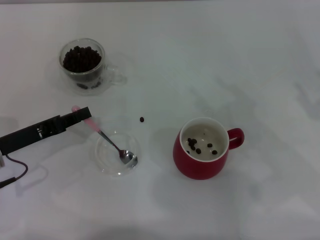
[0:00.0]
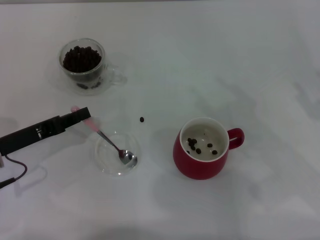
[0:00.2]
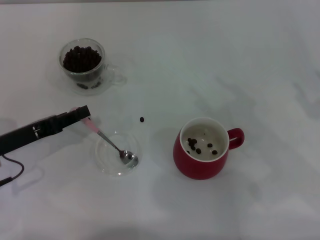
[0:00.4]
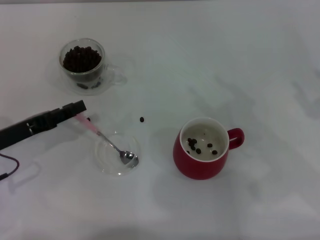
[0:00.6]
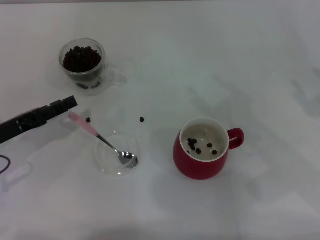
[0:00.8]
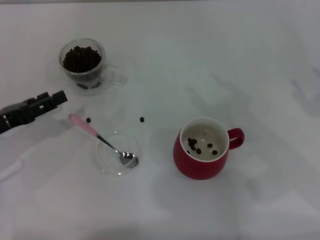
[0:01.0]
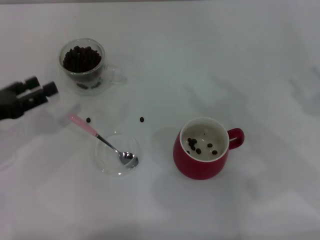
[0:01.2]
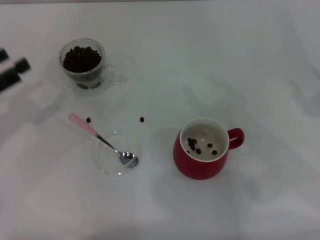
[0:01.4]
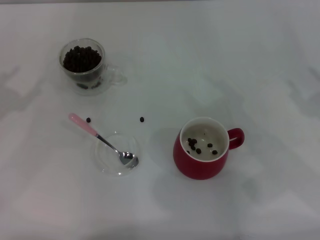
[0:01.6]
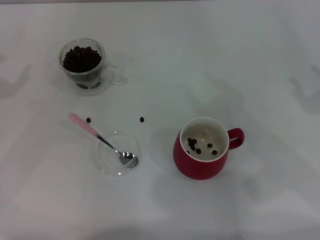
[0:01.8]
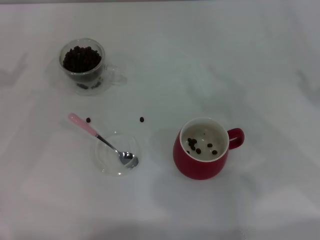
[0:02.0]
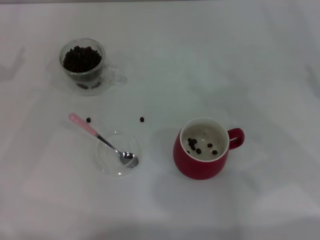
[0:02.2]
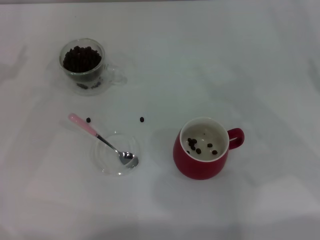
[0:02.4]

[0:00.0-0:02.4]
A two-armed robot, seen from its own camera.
Task of the whole recording: Use a pink spoon to take out the coffee beans from the glass and pour them into the red cup.
0:00.0 to 0:01.2: The left gripper ends up roughly 5 cm from where it was, and opens its fingers.
0:01.2 to 0:02.4: The left gripper ends up approximately 5 cm from where it was.

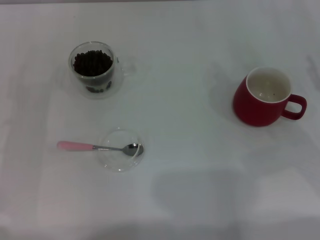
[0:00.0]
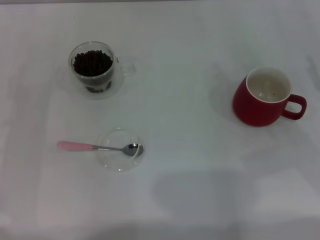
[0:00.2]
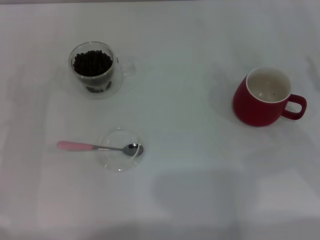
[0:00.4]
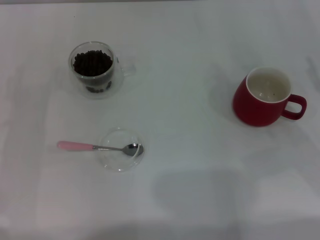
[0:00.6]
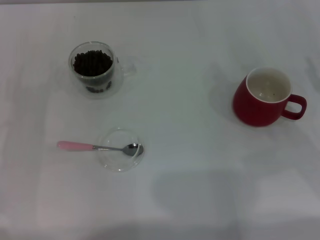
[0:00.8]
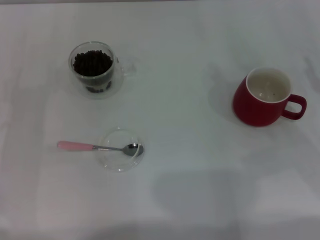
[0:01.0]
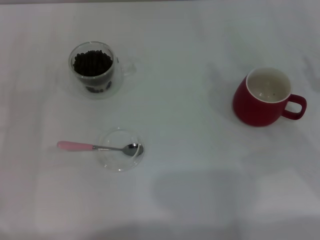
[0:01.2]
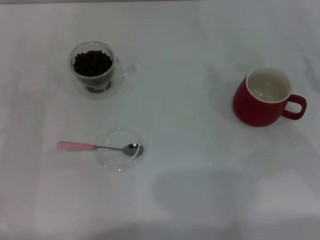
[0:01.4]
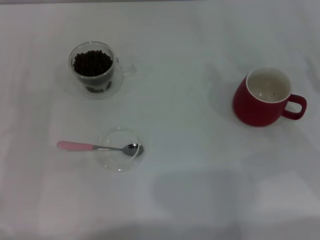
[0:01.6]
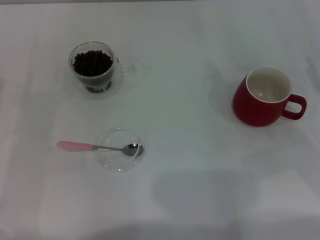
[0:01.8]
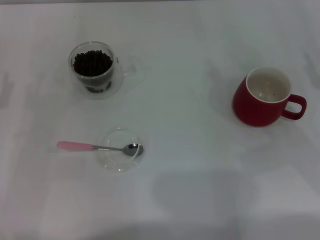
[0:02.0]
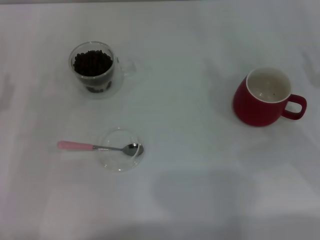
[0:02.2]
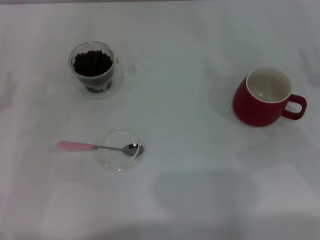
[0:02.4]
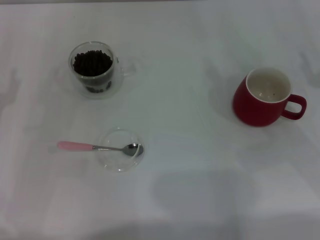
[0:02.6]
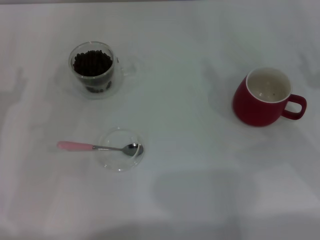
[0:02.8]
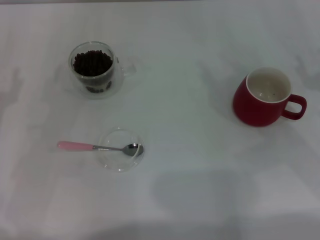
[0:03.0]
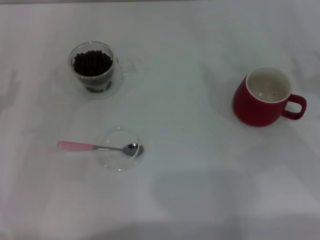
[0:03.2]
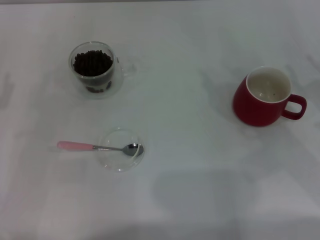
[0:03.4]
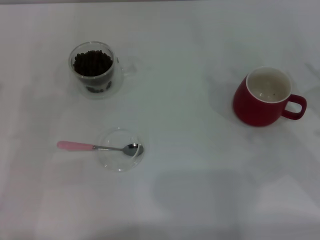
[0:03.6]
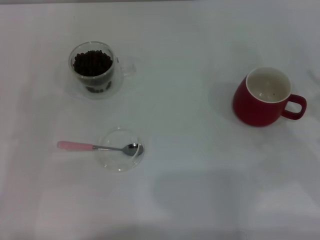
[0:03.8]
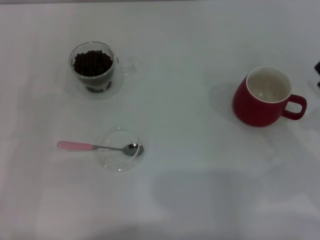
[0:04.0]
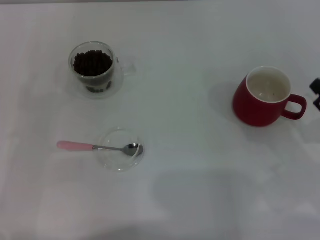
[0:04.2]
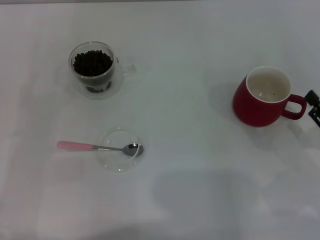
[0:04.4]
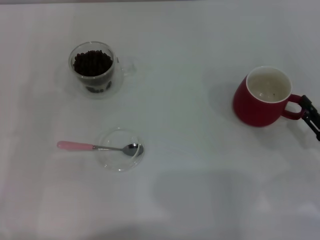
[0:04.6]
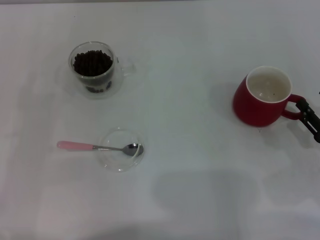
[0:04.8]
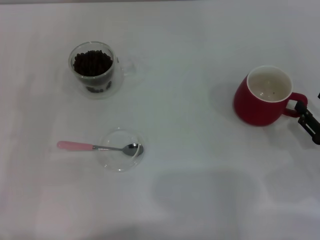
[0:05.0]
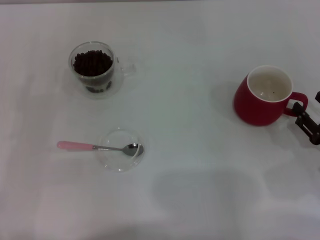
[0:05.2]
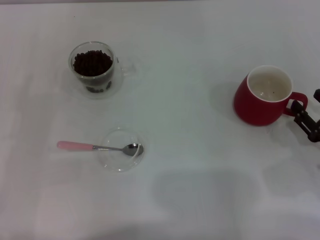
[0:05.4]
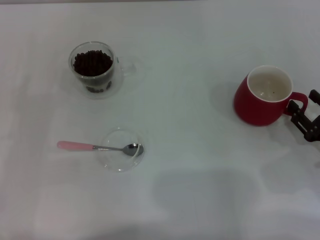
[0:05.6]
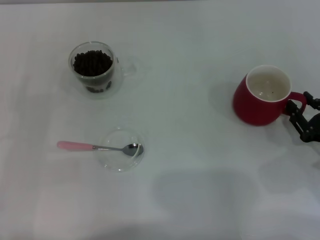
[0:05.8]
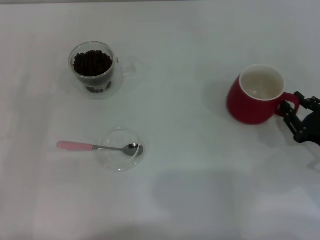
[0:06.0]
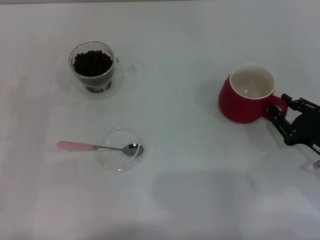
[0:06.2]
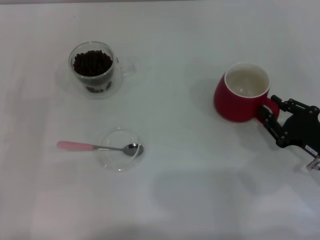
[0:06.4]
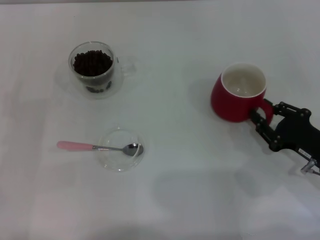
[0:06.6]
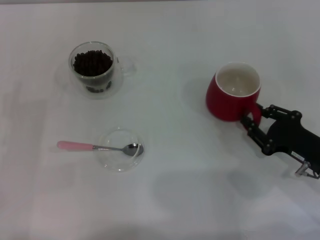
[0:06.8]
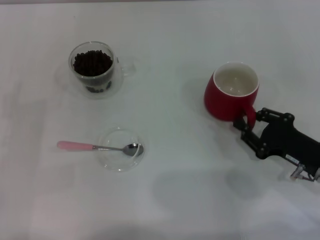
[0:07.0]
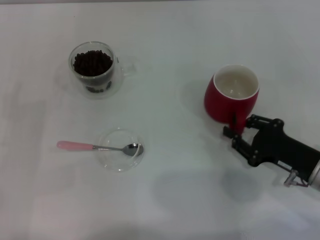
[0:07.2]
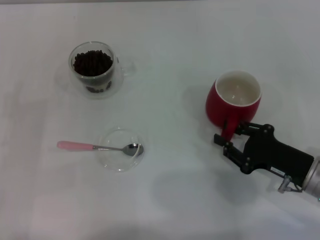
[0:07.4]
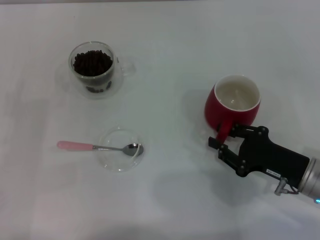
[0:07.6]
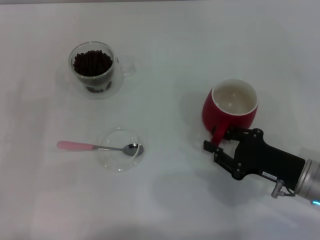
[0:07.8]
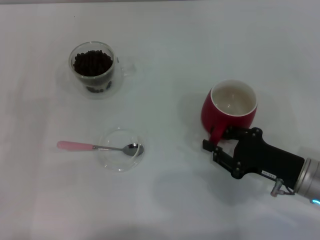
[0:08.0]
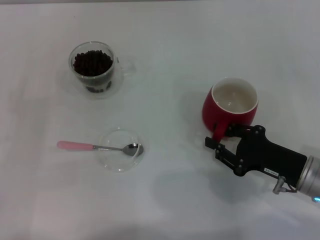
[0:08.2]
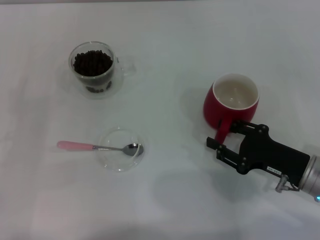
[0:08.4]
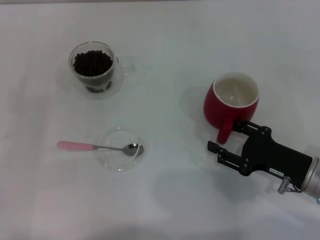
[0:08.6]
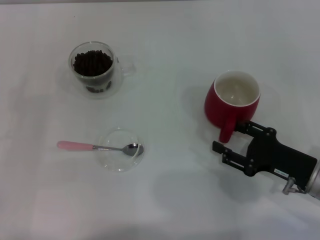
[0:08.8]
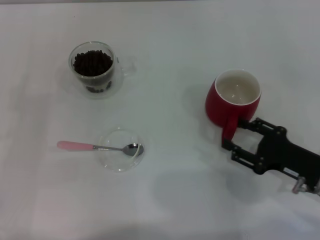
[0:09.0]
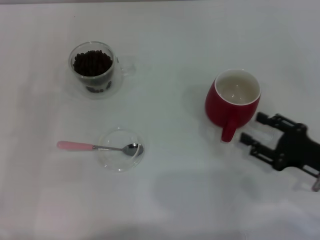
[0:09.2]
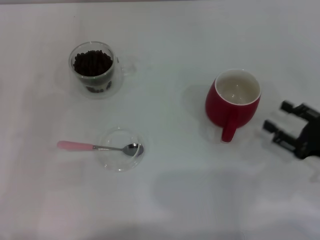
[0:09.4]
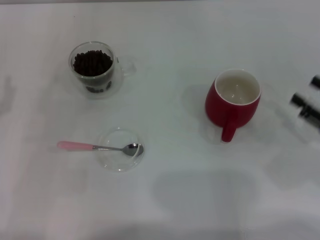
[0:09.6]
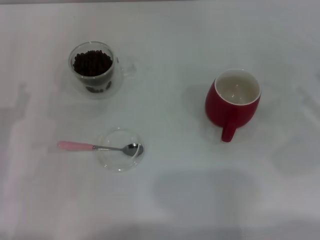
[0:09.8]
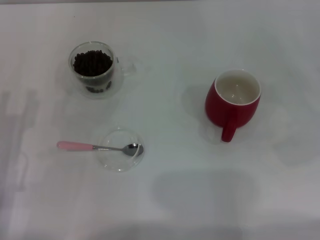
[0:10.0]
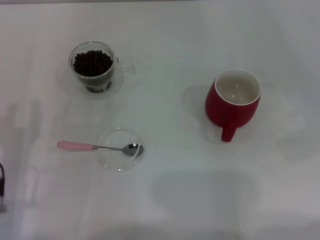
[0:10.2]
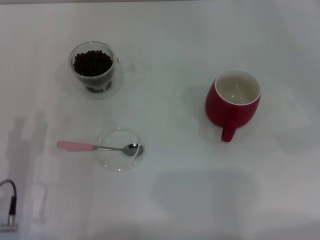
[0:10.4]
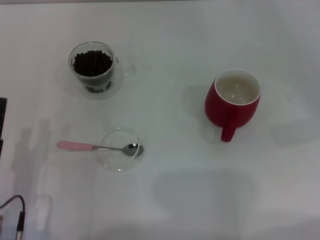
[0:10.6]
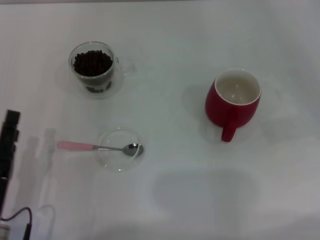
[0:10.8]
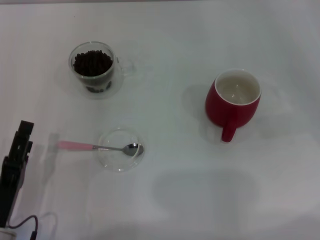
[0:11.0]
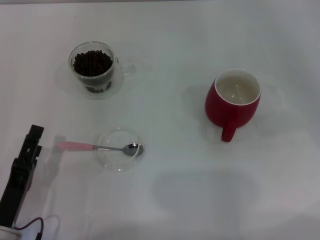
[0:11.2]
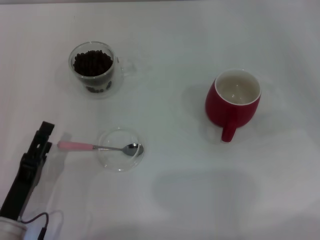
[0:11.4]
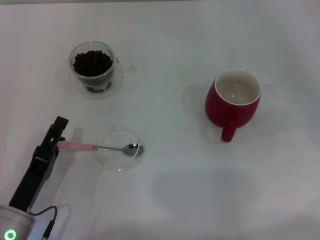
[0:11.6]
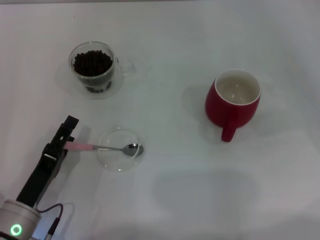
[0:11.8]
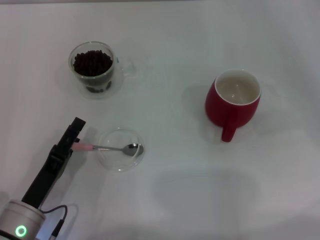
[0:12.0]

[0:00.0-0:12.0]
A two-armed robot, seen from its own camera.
Task of the whole recording: Use a pink spoon to take out the coffee beans from the glass and pour them into the red cup.
Step, 0:00.0 to 0:09.2: Move the cup to the center of view with the left gripper.
0:04.4 to 0:06.0: The right gripper closes its fingers.
0:06.0 to 0:07.6: The right gripper heads to the left, covering about 5 cm.
0:07.6 to 0:09.0: The right gripper opens.
0:09.0 to 0:10.4: The left gripper goes roughly 15 cm to the right and backward, while the right gripper is displaced to the right and upward by roughly 20 cm.

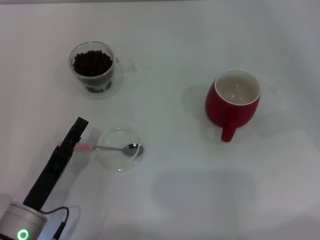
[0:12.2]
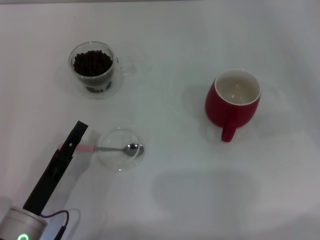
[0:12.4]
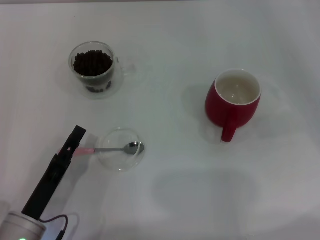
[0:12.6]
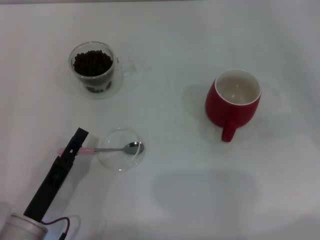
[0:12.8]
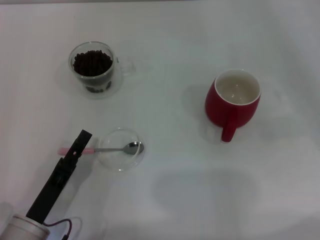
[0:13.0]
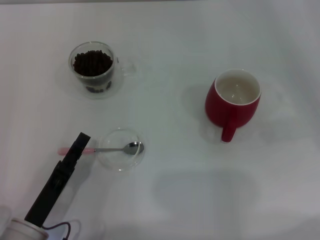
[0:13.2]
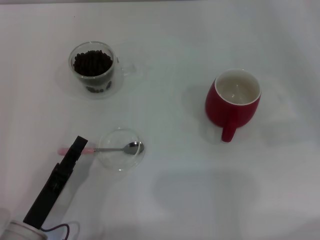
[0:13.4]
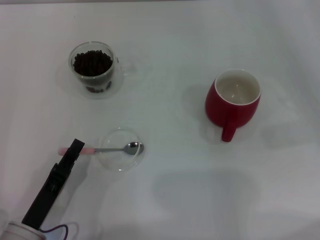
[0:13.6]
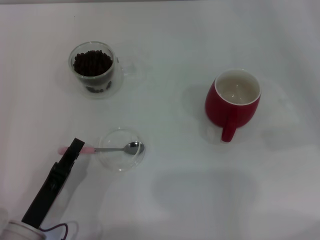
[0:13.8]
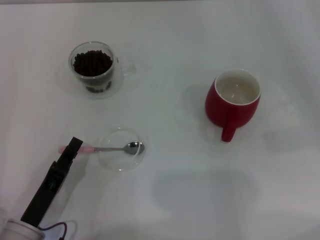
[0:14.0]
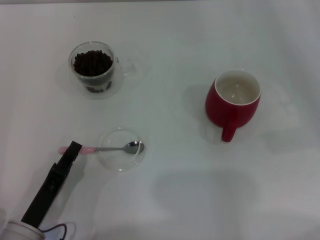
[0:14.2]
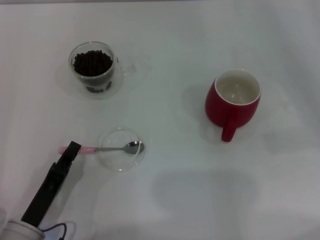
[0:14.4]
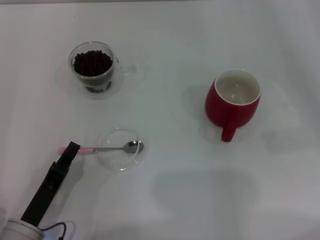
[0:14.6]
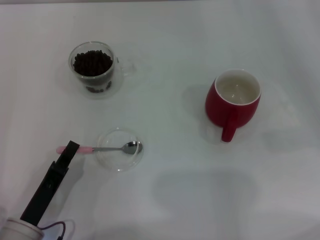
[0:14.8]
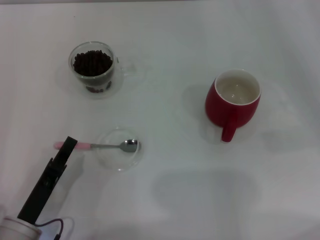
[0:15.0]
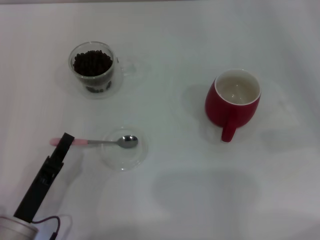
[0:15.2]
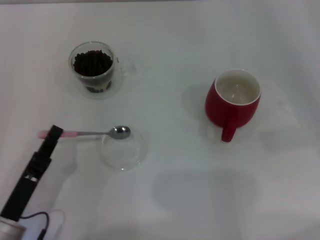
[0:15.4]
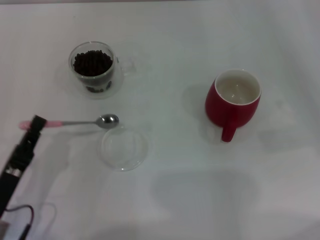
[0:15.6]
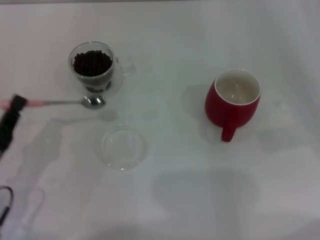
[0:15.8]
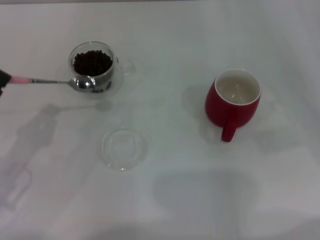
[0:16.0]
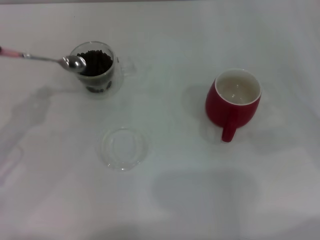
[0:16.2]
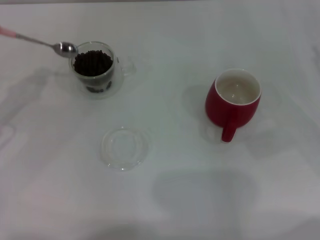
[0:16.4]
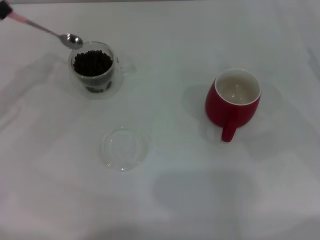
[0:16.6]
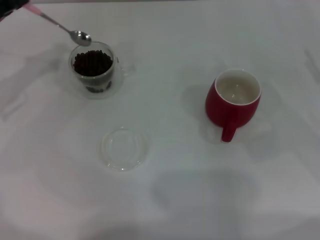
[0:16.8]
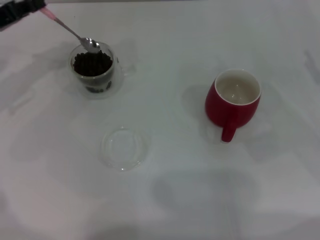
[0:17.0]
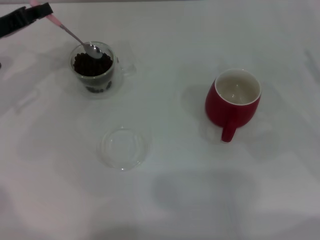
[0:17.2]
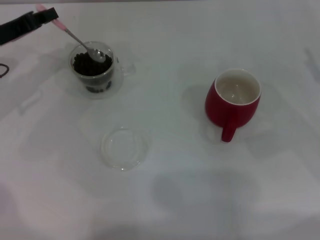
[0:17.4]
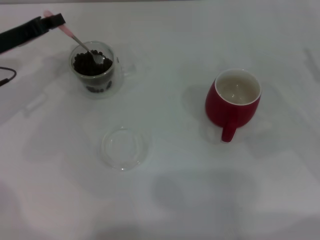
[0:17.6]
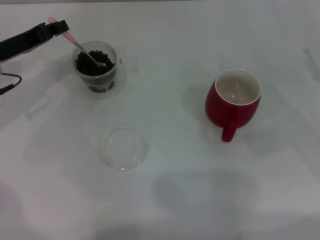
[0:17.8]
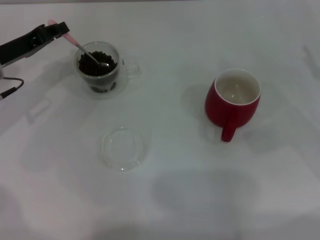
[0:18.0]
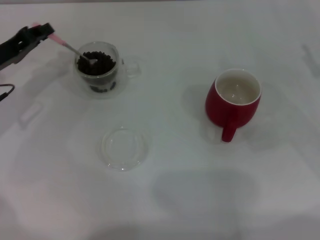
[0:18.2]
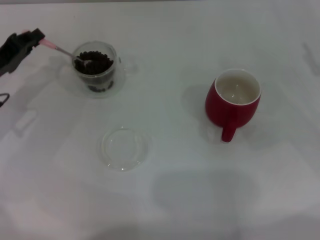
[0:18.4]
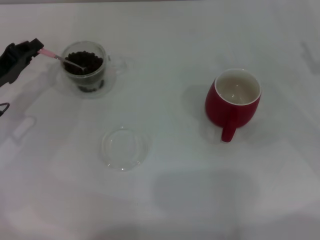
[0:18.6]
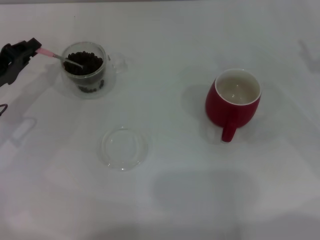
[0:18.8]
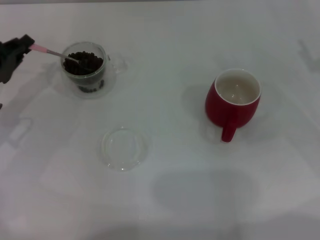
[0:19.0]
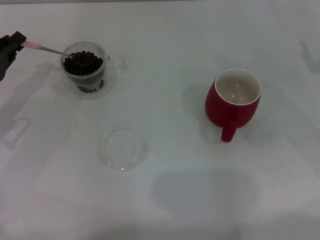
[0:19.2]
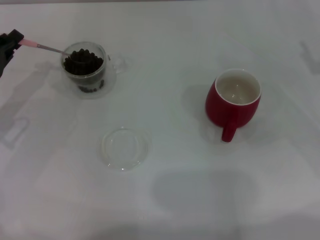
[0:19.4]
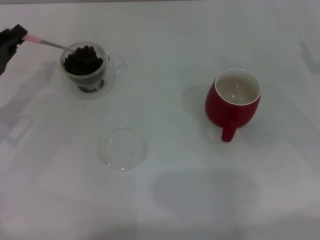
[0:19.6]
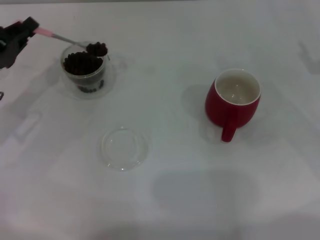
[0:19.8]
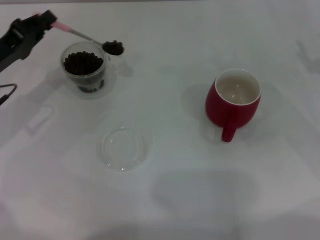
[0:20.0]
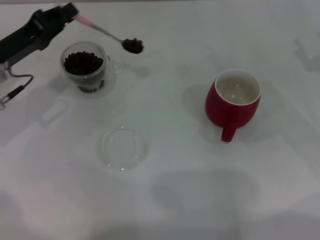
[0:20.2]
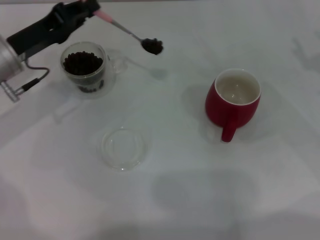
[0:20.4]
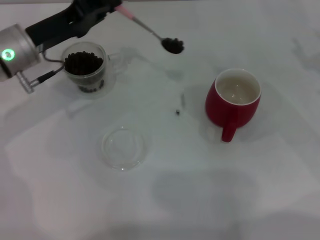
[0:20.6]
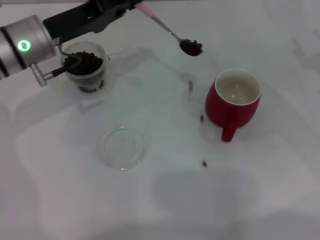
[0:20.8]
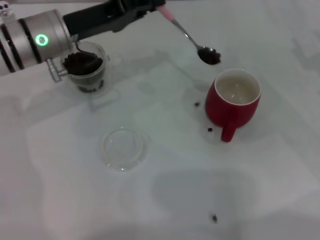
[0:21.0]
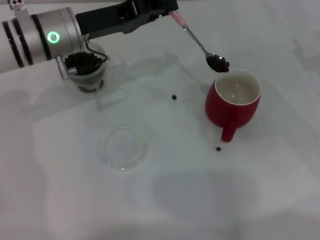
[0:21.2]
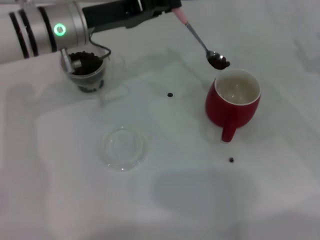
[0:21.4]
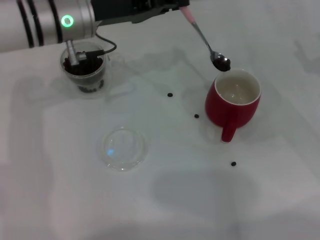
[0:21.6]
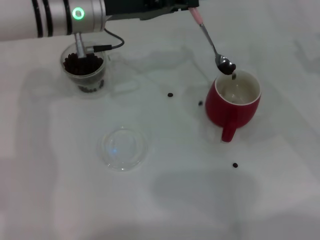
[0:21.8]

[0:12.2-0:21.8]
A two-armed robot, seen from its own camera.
Task of the whole recording: Use a pink spoon to take out the coffee beans from the glass and pour them into the red cup.
Step, 0:12.2 to 0:15.4: Pick up the spoon with the right gripper.
0:12.2 to 0:13.8: The left gripper closes its fingers.
0:13.8 to 0:15.4: The grippers stay close to where they were, moving slightly.
0:15.4 to 0:17.0: The left gripper shifts some 25 cm forward and upward.
0:17.0 to 0:18.6: The left gripper travels downward and backward by roughly 10 cm.
0:18.6 to 0:20.2: The left gripper changes place by roughly 5 cm.
0:20.2 to 0:21.8: The left gripper shifts some 15 cm to the right, upward and forward.
